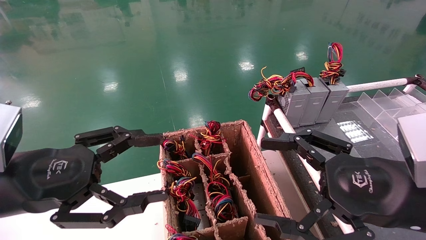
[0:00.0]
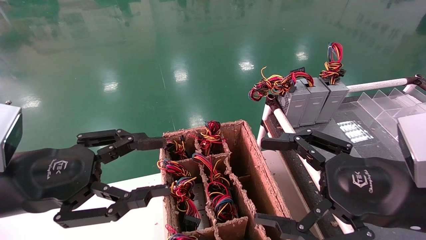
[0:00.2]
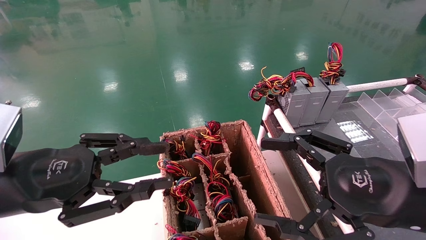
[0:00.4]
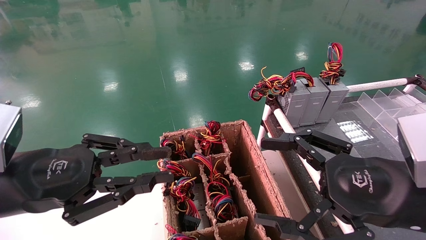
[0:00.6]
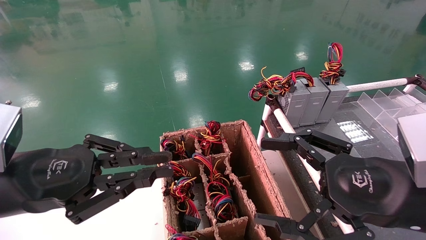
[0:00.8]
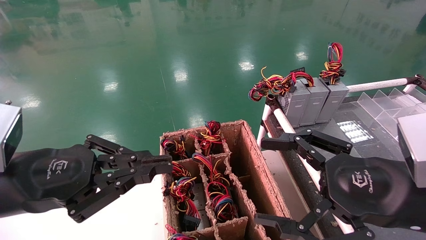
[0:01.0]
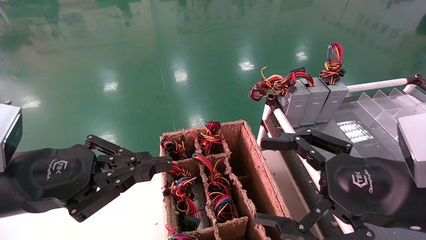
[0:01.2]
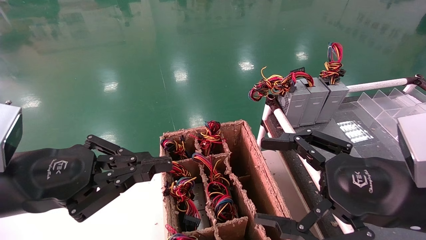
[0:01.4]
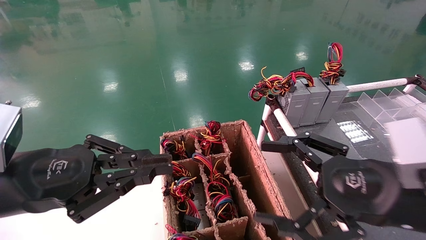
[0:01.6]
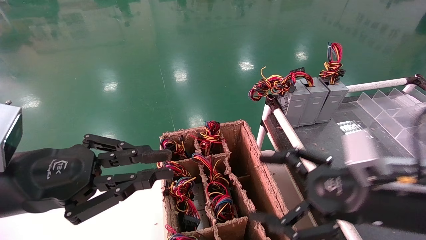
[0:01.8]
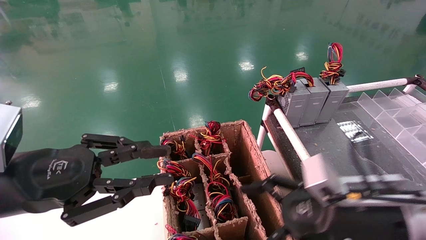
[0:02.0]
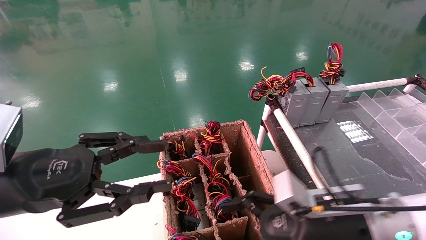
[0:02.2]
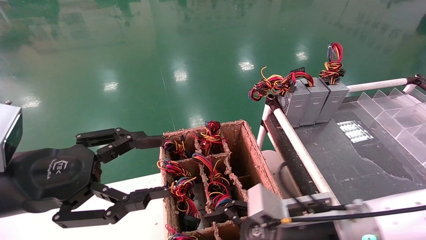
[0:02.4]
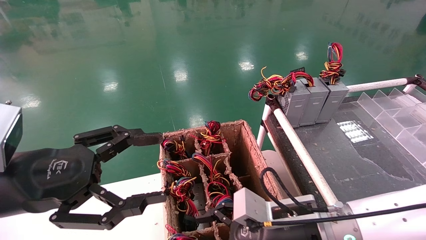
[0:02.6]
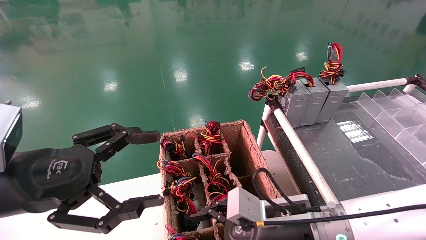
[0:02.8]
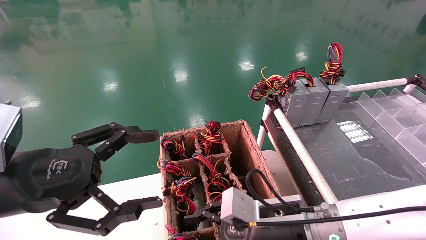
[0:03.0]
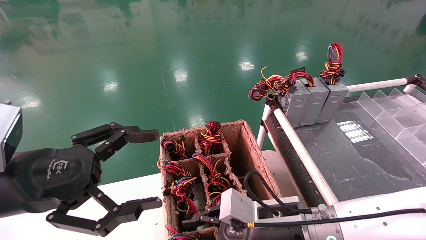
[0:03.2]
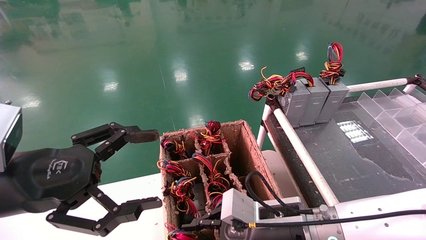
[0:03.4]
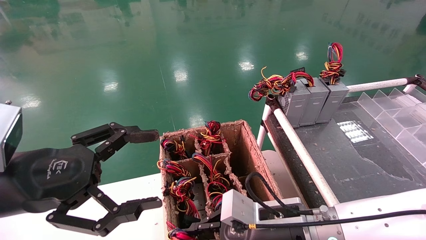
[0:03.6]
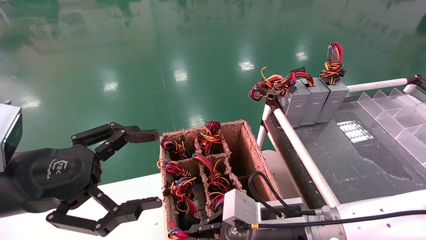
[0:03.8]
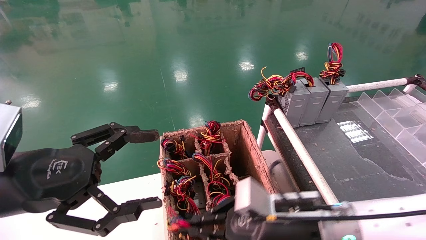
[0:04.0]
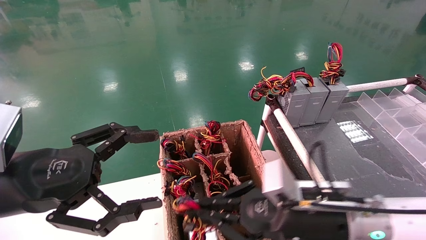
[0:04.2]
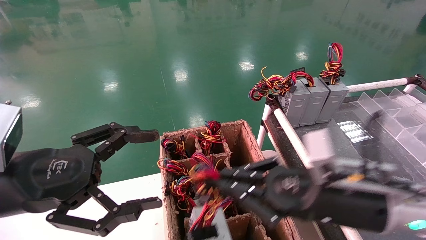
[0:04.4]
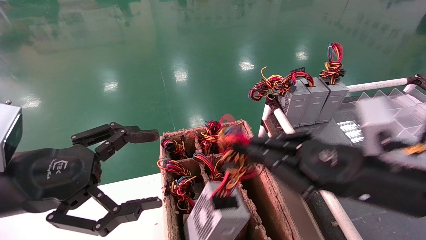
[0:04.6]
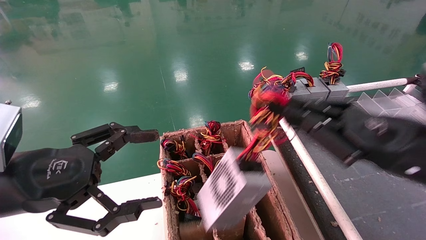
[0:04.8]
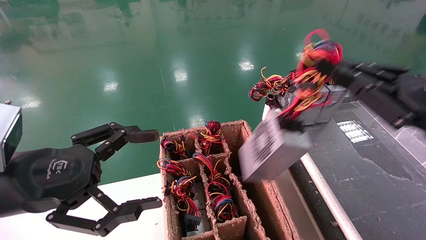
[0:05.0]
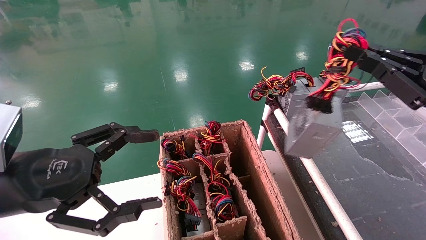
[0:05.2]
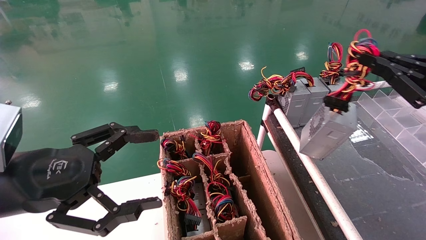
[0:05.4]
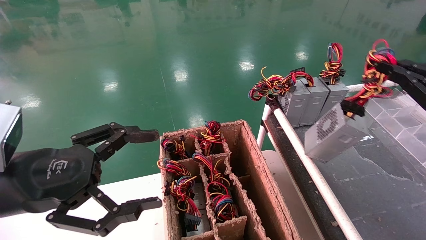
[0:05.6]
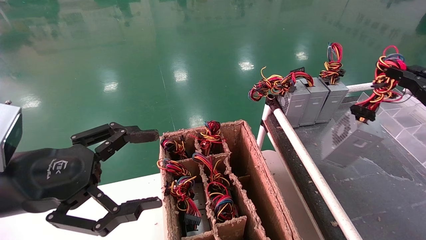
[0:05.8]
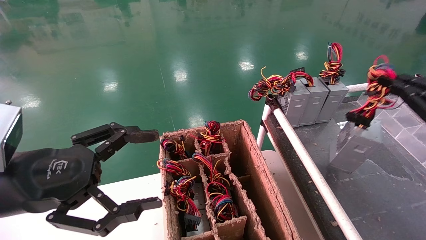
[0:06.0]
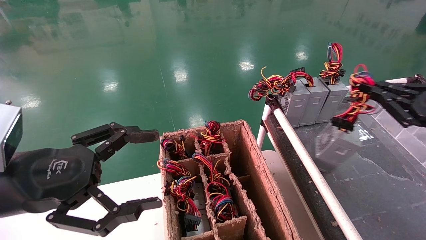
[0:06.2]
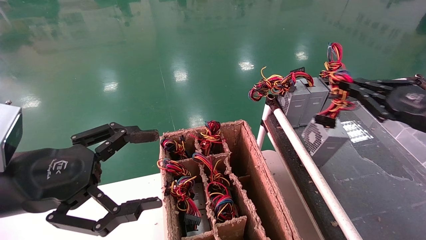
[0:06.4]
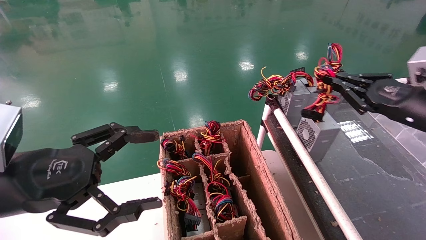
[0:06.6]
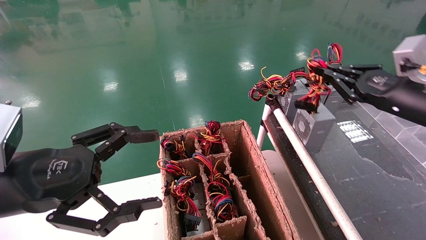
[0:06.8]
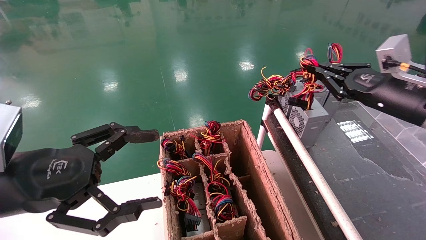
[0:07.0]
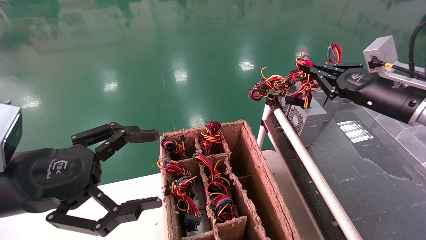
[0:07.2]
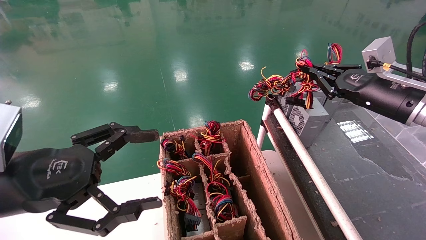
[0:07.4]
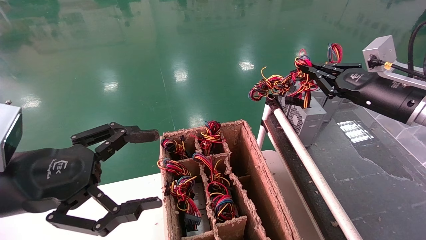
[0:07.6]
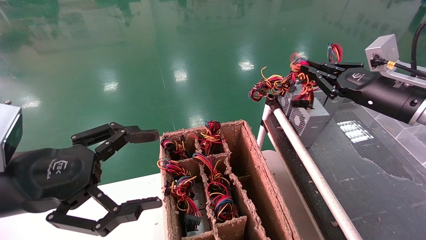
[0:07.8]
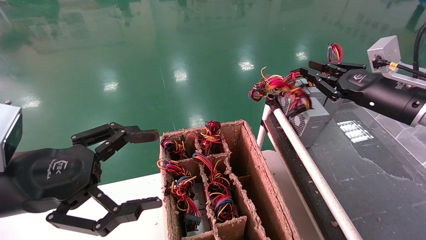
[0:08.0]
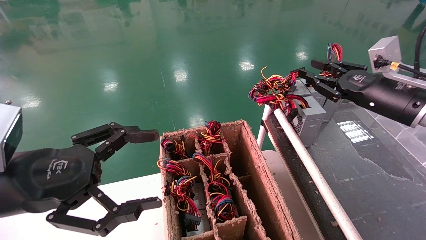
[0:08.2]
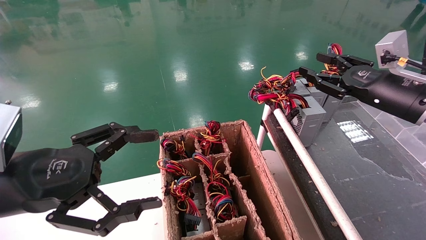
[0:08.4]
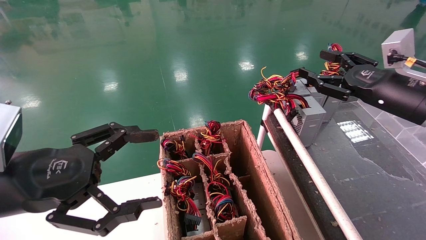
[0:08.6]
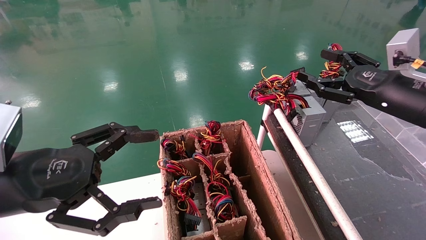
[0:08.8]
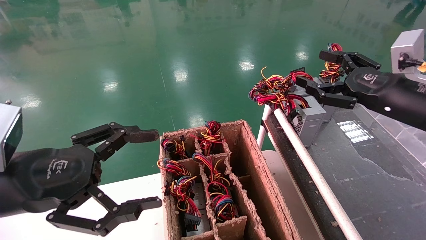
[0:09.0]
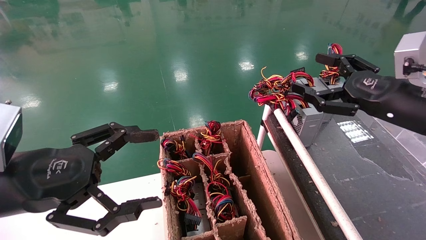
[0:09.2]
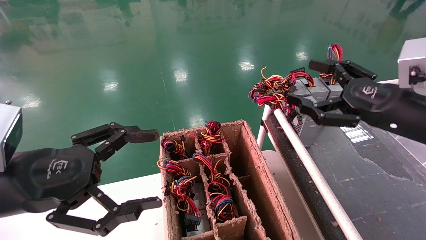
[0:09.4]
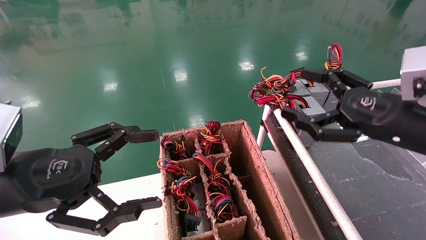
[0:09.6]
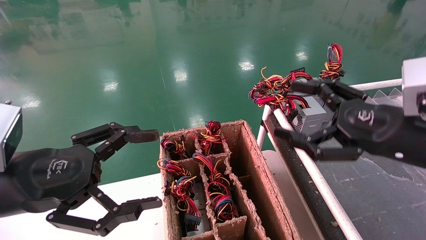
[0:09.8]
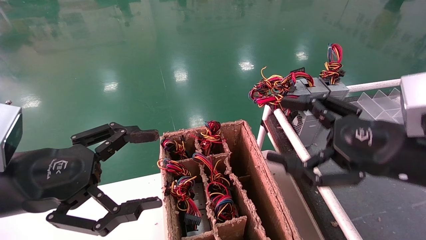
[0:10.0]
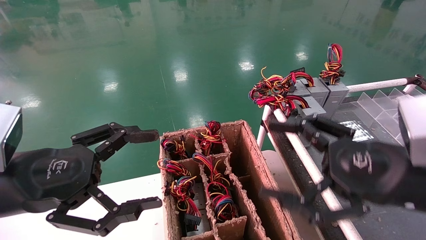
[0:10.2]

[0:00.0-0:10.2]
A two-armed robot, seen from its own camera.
Step, 0:00.6 to 0:03.6: Grab and lift the power supply from the large box.
Step, 0:03.8 to 0:08.2: Place the power supply on the operating table.
0:00.0 to 0:01.4: The left gripper closes up.
0:01.4 to 0:03.0: The left gripper opens. The right gripper is displaced to the left, downward and forward by roughly 20 cm.
0:03.0 to 0:04.4: The right gripper is displaced to the right and upward by about 10 cm, and closes its fingers.
0:04.4 to 0:05.8: The right gripper shifts some 25 cm to the right.
0:05.8 to 0:07.2: The right gripper moves forward and to the left, about 15 cm.
0:07.2 to 0:08.8: The right gripper opens its fingers.
0:08.8 to 0:10.2: The right gripper travels backward and to the left by about 15 cm.
